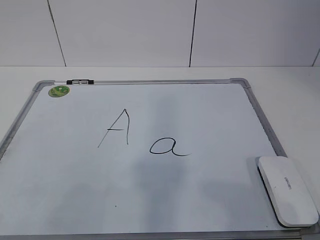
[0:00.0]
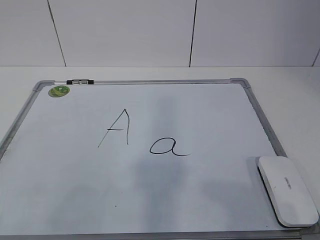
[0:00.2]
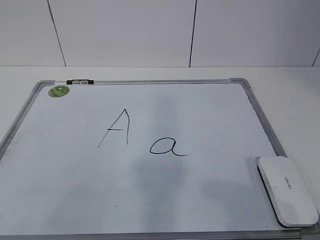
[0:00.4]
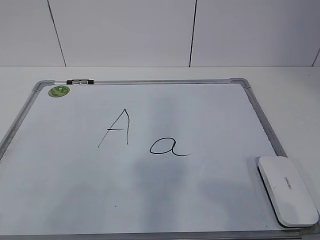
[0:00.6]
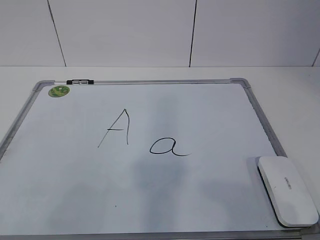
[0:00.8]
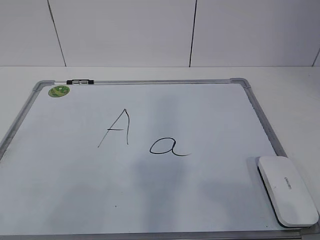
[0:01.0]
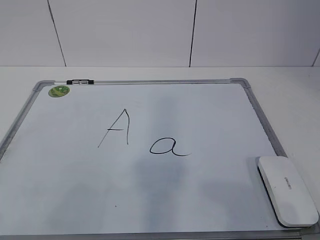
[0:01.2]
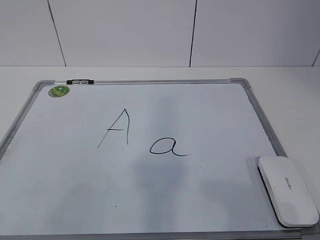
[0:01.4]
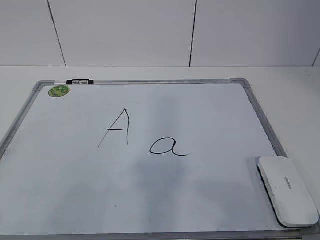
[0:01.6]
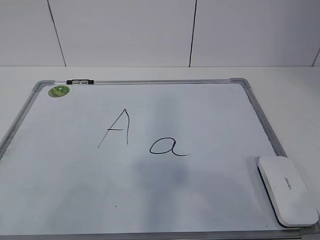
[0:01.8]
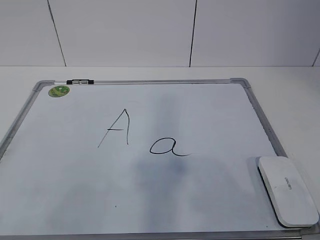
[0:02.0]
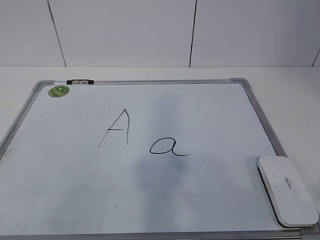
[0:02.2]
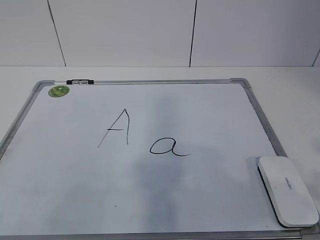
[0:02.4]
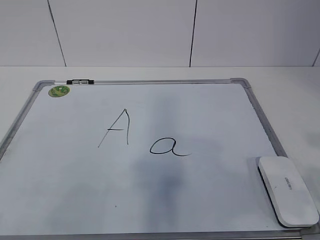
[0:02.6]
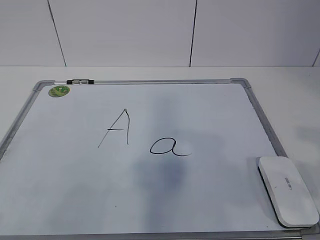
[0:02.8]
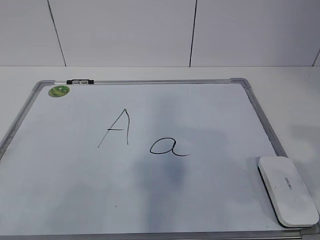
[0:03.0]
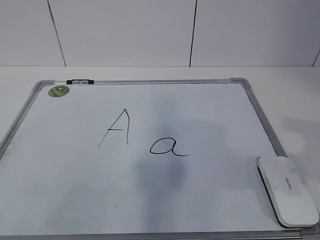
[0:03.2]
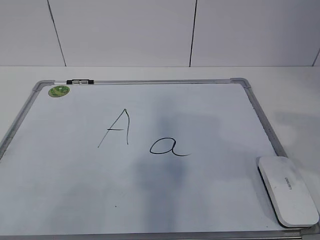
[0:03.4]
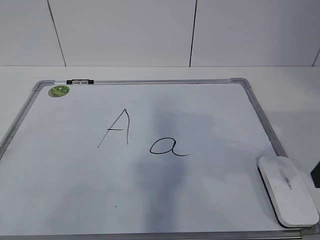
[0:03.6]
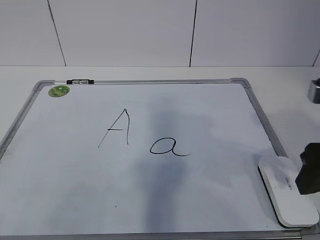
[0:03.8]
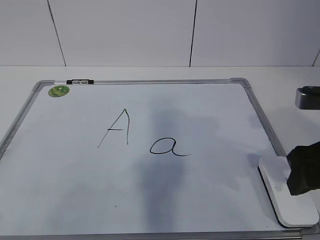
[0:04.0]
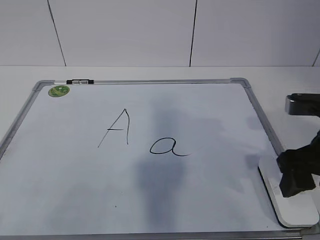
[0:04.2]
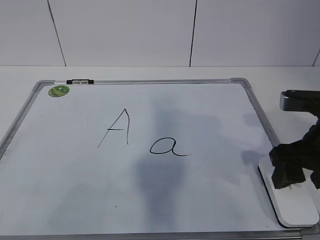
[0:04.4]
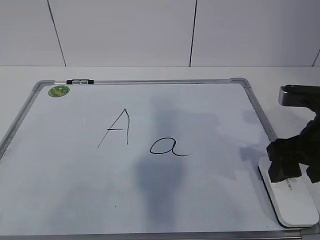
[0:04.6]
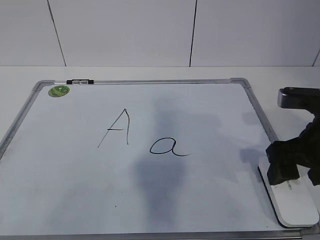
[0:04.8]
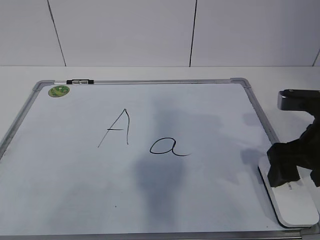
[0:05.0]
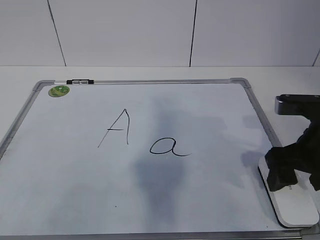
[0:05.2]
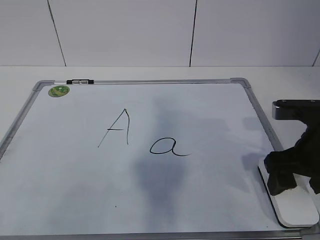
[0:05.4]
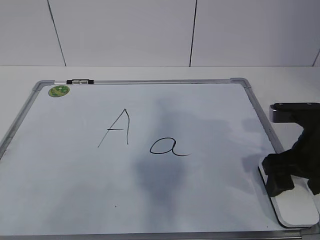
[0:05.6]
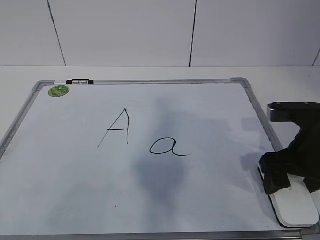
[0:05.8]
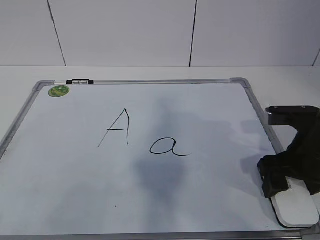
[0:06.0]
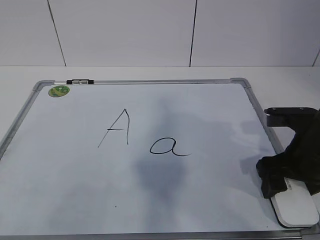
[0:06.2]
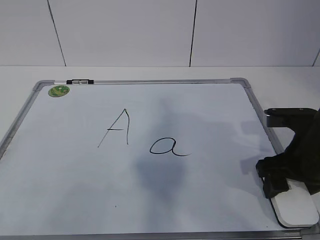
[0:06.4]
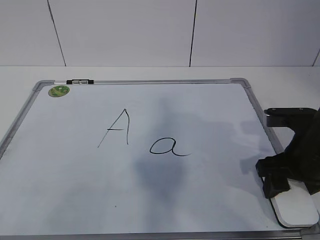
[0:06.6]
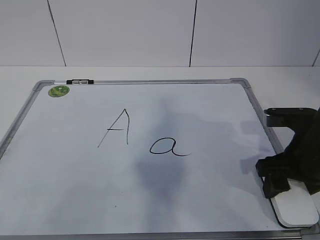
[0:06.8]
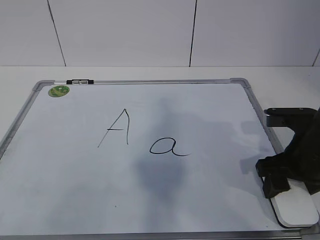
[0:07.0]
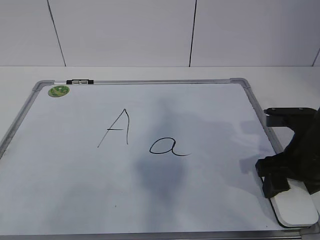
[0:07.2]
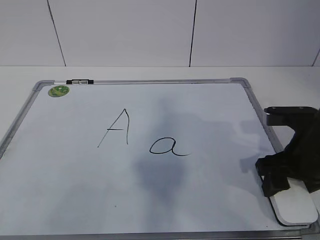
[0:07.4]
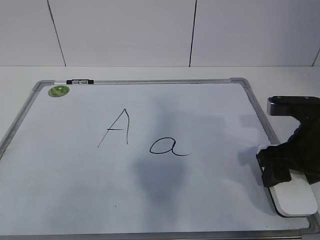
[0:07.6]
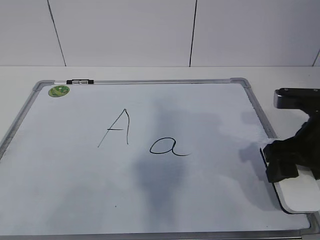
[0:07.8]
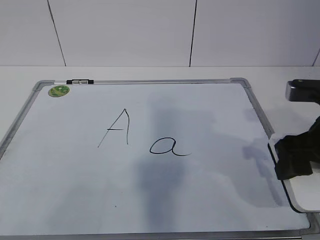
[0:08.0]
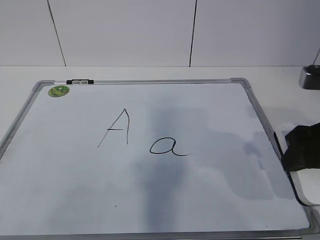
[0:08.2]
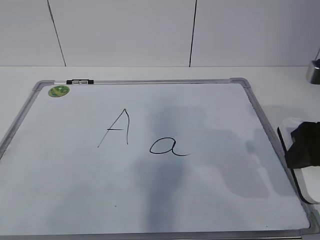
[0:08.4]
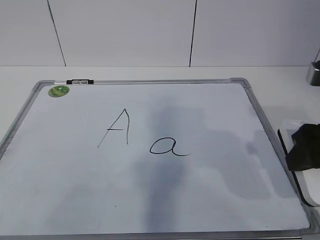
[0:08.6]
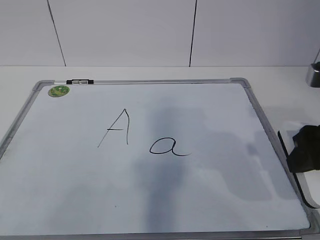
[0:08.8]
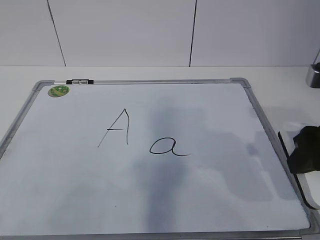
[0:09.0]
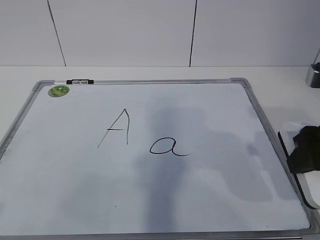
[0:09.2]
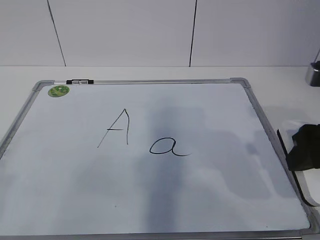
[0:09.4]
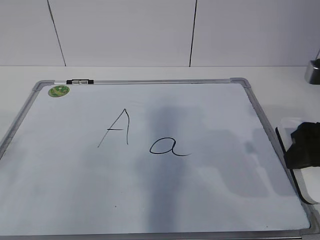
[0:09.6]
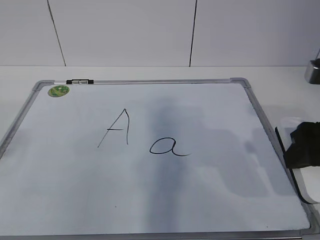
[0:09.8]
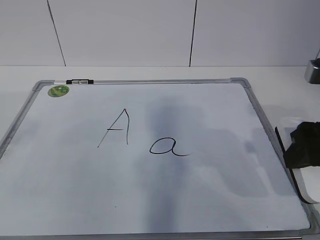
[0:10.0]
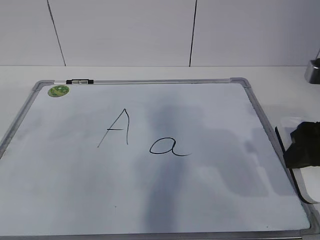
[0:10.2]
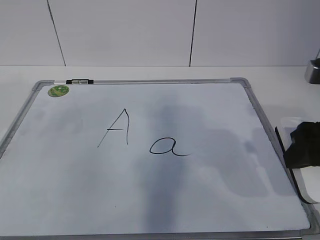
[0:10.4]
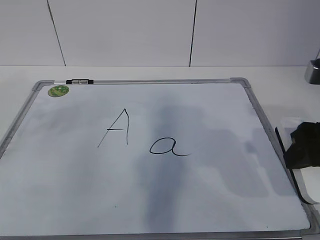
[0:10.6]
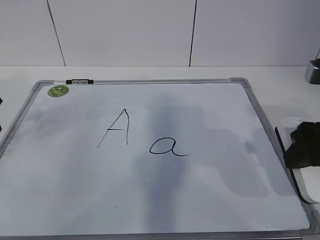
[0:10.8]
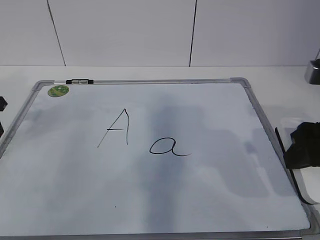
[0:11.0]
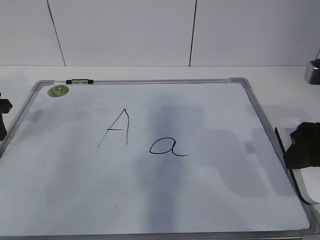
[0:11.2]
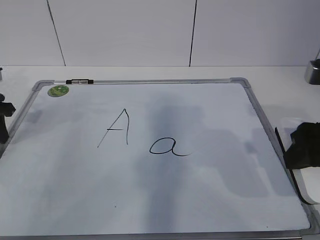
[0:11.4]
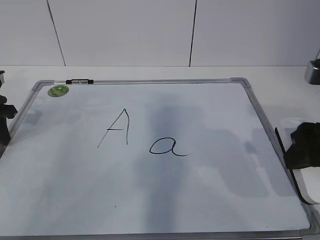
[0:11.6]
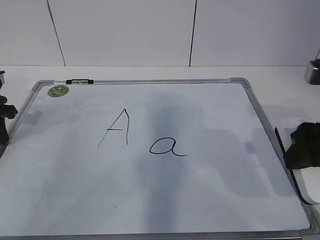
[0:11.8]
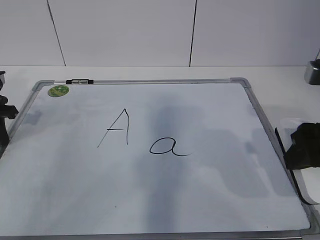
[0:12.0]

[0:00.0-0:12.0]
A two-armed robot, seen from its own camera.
Task of the whole recording: pick up the eraser on the blackboard and erase the letter "a".
Step, 0.0 to 6.0 s: Grab the eraser with your right hand.
Step, 6.2 to 10.0 s: Hold the drawing board steady with your left hand.
3.0 to 4.4 s: The right gripper is displaced forward, downward and to the left by some 15 cm.
4.4 to 6.0 s: The right gripper opens.
6.0 to 7.6 s: The right gripper closes its fingers.
7.6 to 9.0 s: The right gripper is displaced upward by approximately 5 cm.
10.4 to 12.0 s: The left gripper heads downward and forward, covering roughly 15 cm, and closes.

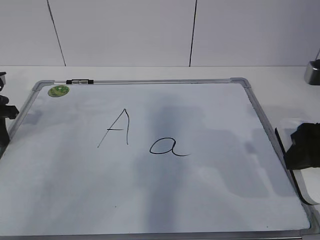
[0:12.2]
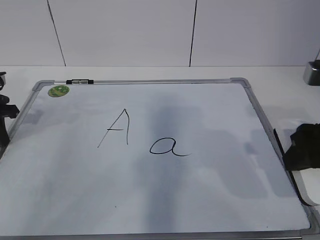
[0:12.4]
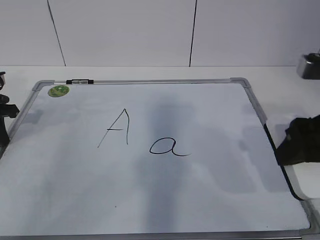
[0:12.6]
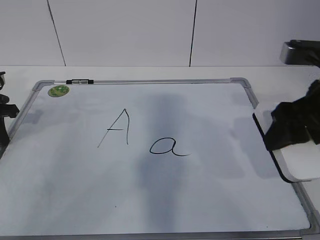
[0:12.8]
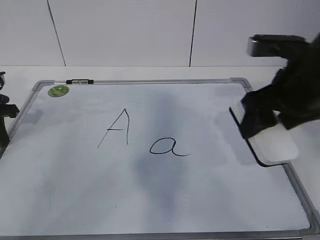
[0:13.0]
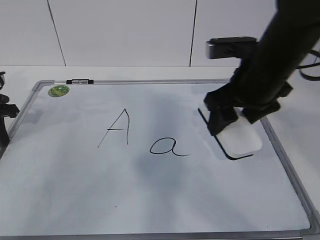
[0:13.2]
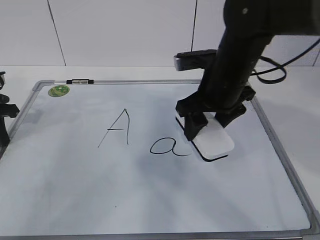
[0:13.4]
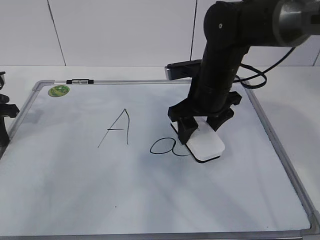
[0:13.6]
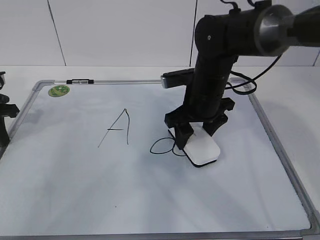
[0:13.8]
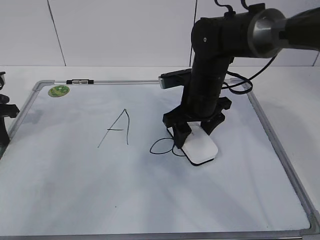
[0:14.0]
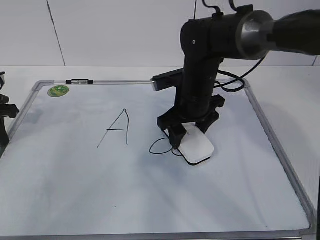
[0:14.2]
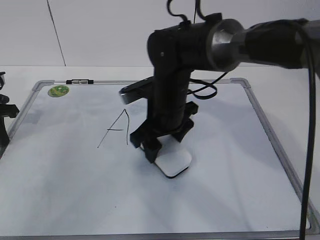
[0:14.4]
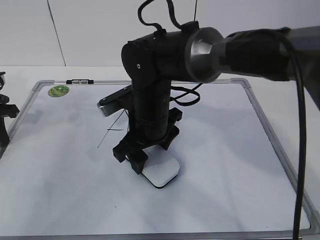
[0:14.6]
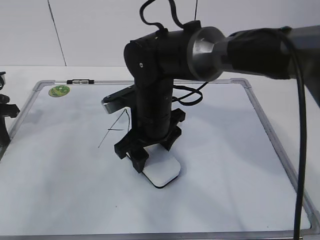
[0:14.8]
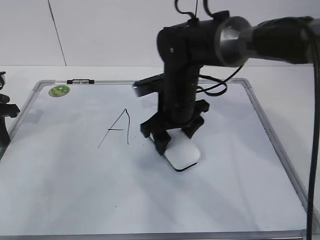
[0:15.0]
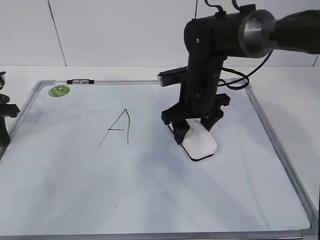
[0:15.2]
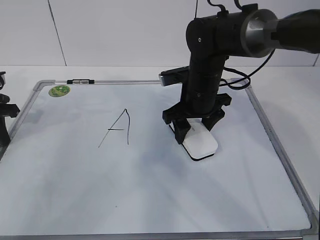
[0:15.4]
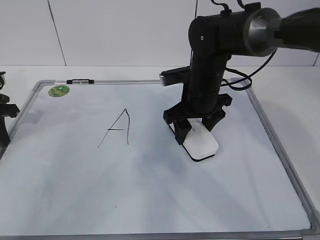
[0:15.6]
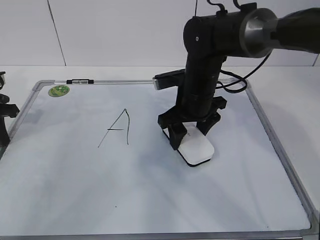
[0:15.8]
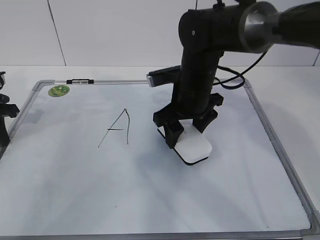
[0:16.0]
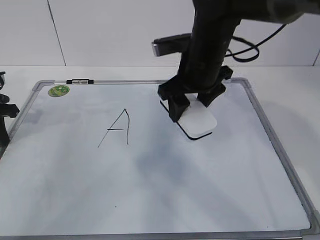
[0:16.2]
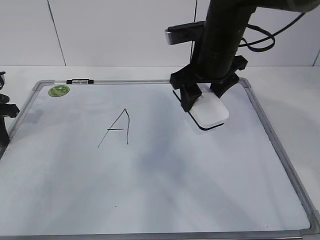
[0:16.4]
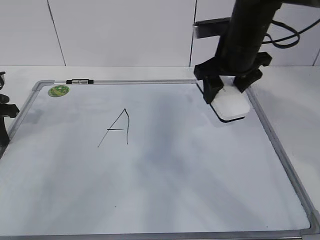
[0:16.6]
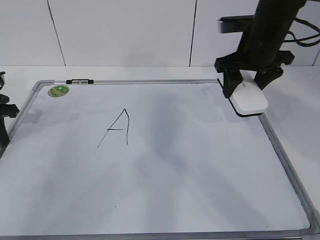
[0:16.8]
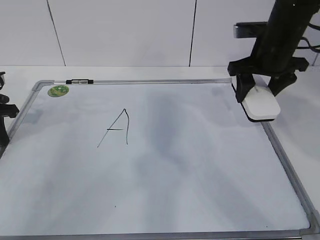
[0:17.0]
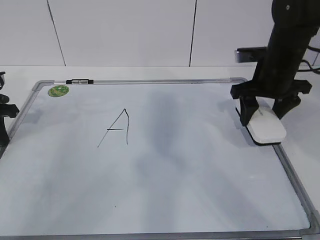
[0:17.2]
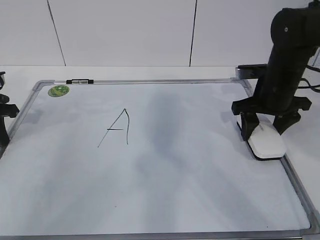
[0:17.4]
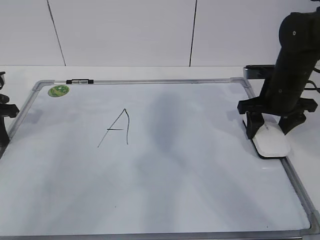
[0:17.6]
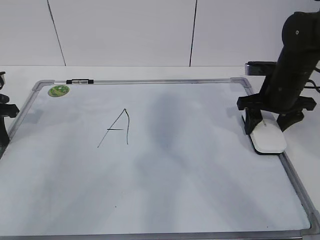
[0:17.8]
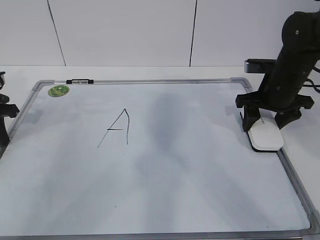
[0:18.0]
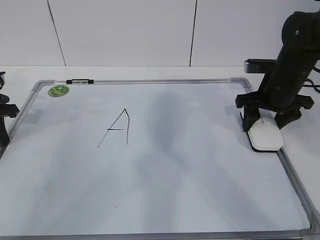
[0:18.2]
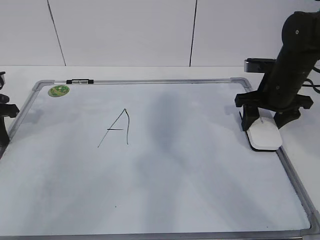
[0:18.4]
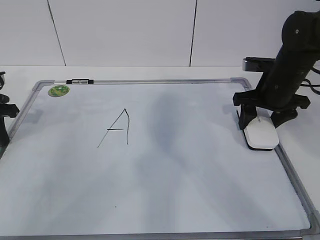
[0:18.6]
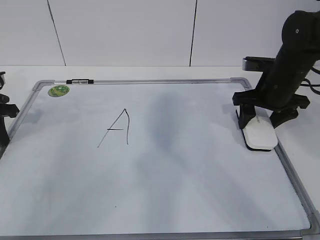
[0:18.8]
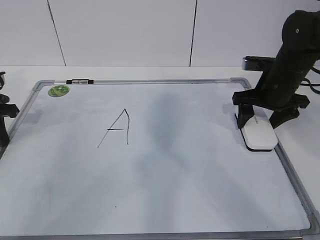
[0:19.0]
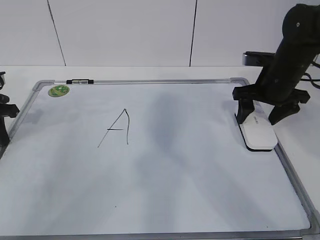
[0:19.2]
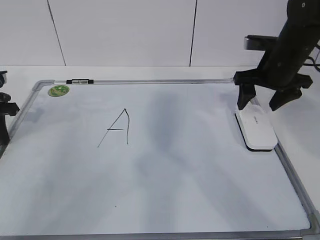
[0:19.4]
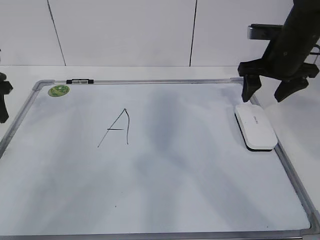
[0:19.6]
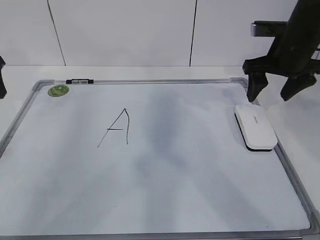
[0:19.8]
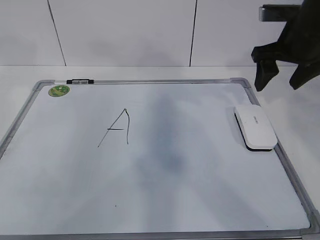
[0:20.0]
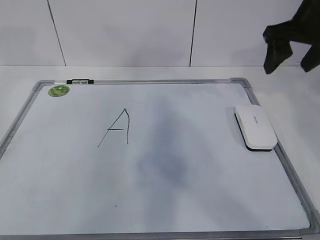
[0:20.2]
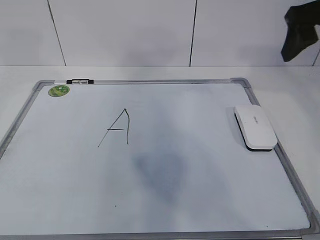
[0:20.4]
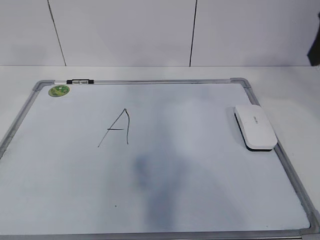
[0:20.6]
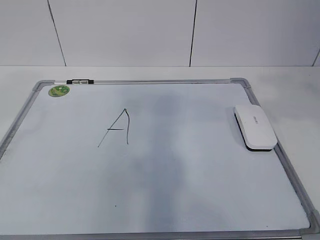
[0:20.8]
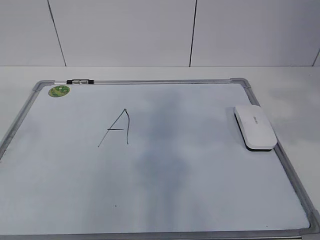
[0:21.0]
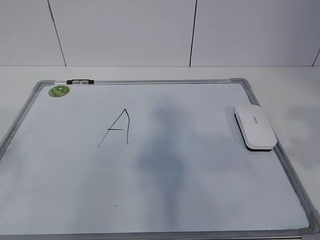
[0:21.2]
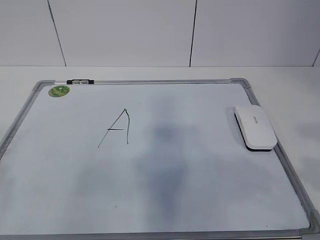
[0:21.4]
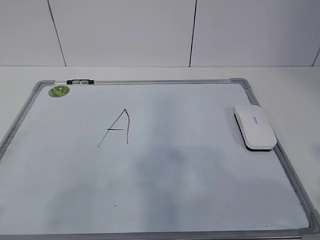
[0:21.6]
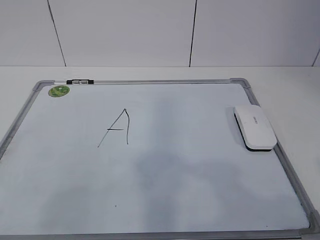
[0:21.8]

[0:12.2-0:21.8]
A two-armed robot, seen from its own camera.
Task of the whole recording: pick up the eraser on the blackboard and erase the letter "a".
Step, 13.4 to 15.6 s: Put down the eraser with your right hand.
12.2 to 13.8 s: The right gripper shifts some 25 cm forward, to the left and downward.
13.8 to 15.4 s: The right gripper moves about 10 cm to the left and comes back.
15.4 to 17.0 s: The right gripper is displaced to the right and upward by roughly 15 cm.
17.0 to 18.6 s: The right gripper shifts about 5 cm downward.
18.6 to 20.2 s: The right gripper heads upward, covering approximately 15 cm, and opens; the left gripper is displaced upward by some 20 cm, and opens its fingers.
20.2 to 21.8 s: Both grippers travel together backward, about 35 cm. The right gripper closes up.

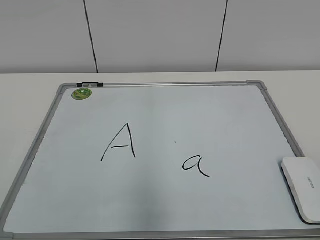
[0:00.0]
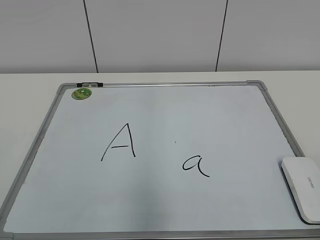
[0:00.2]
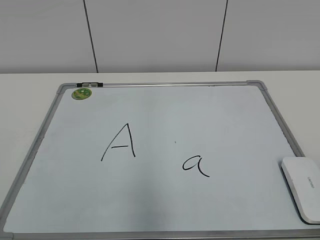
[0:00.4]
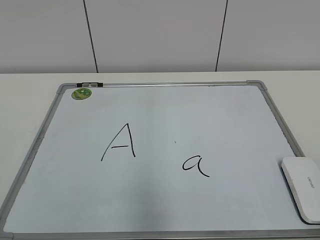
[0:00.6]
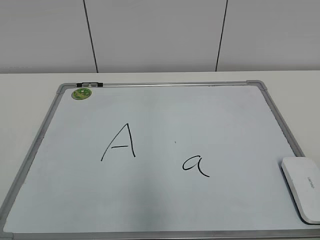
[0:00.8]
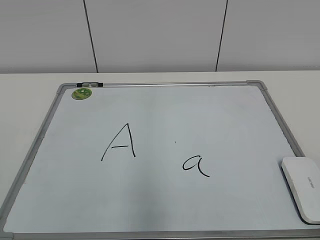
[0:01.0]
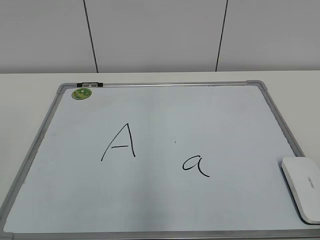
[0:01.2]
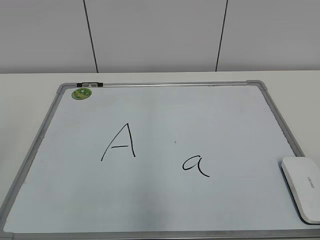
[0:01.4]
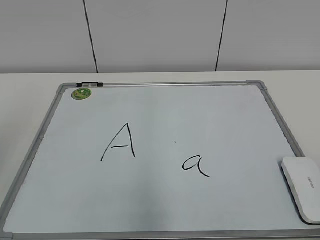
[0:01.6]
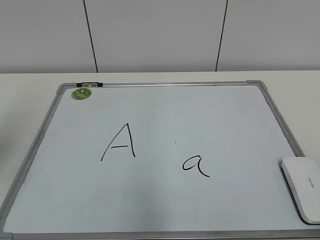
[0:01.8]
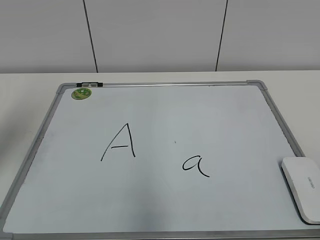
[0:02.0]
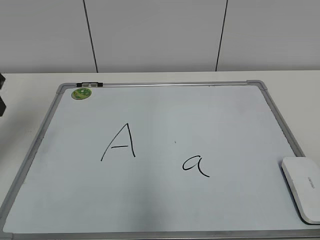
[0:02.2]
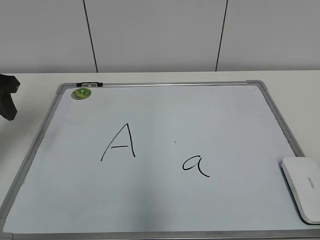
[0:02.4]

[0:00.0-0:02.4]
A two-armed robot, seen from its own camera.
Task of the whole recording: pick up the eraser on the blackboard and erase the letter "a".
1.2 to 2.4 s: The left gripper shifts roughly 30 cm forward.
